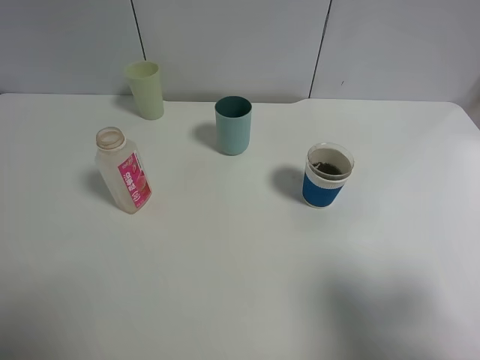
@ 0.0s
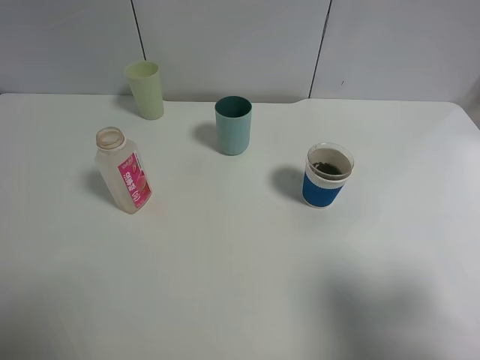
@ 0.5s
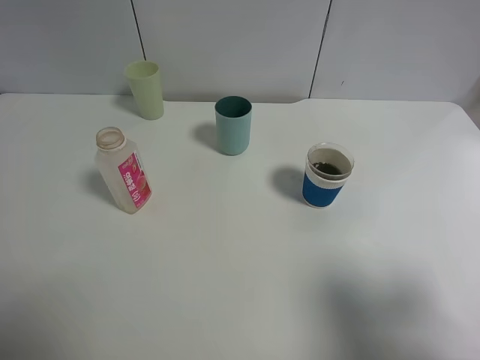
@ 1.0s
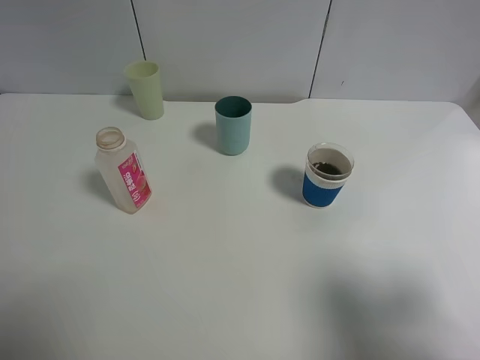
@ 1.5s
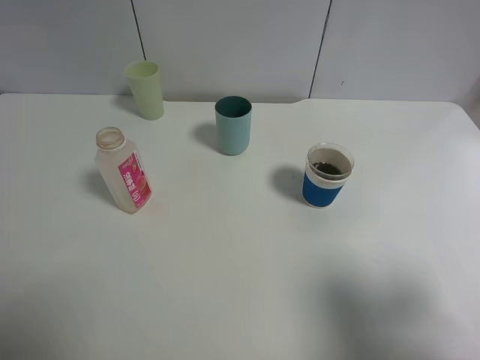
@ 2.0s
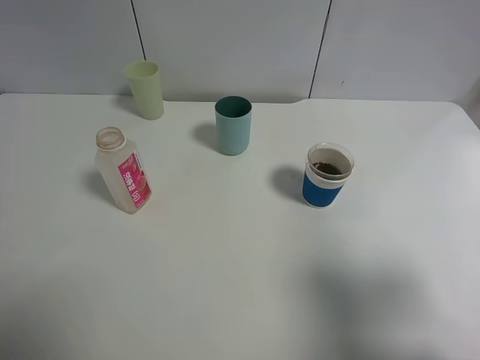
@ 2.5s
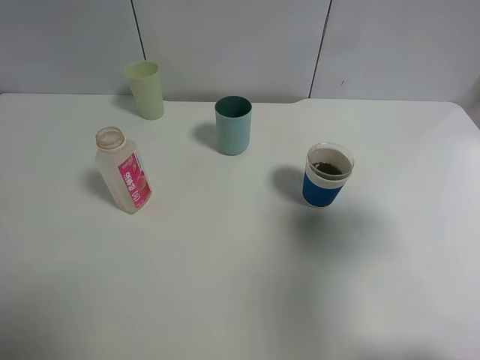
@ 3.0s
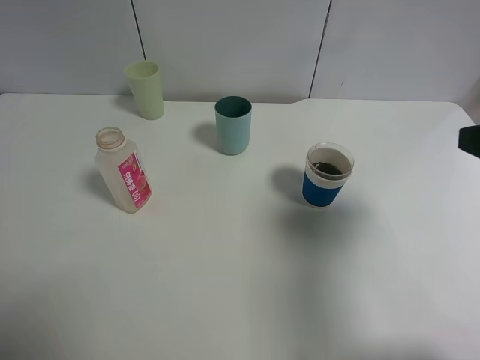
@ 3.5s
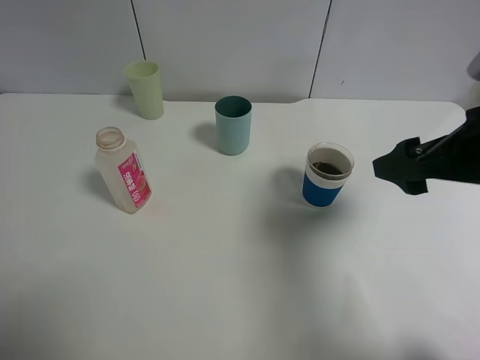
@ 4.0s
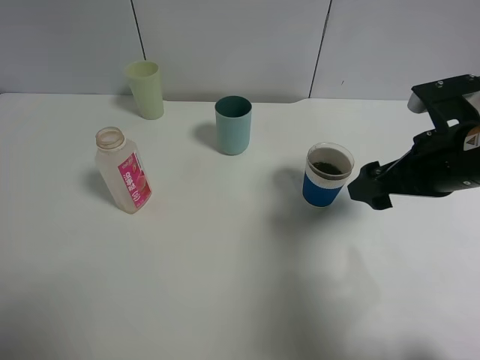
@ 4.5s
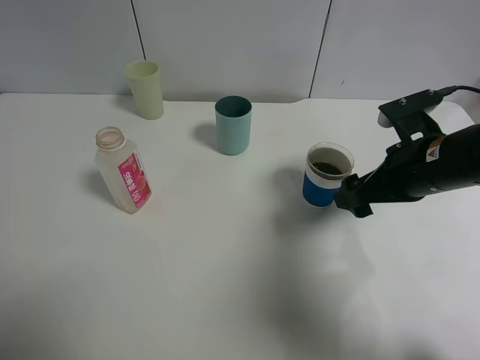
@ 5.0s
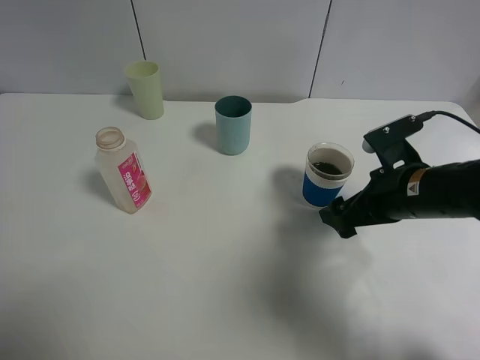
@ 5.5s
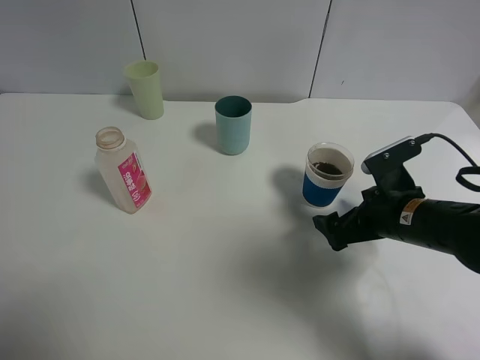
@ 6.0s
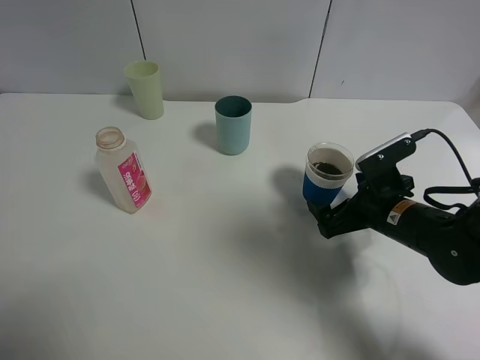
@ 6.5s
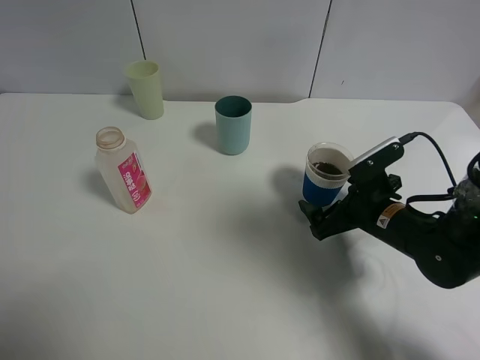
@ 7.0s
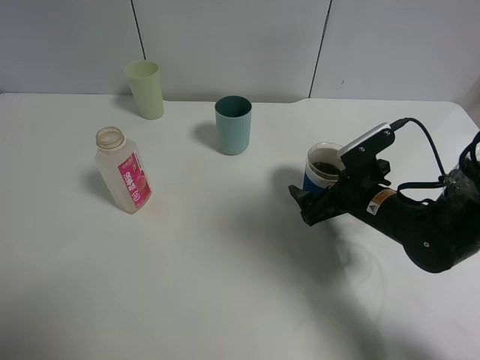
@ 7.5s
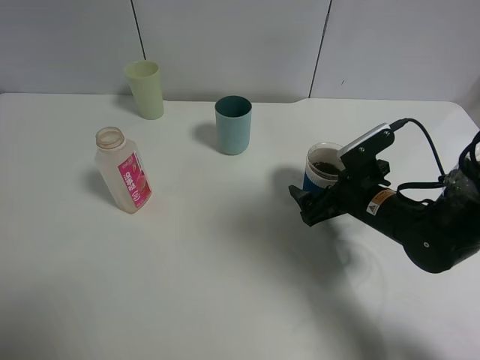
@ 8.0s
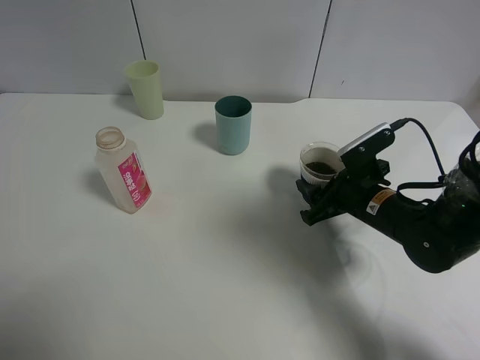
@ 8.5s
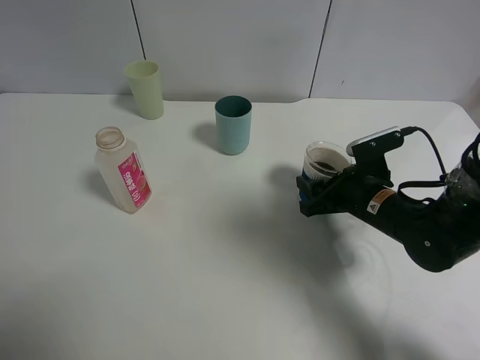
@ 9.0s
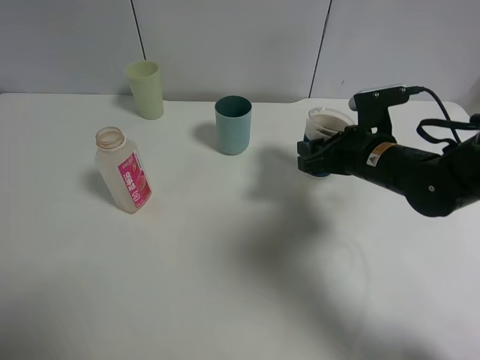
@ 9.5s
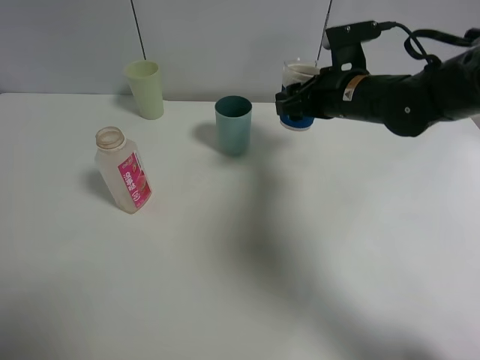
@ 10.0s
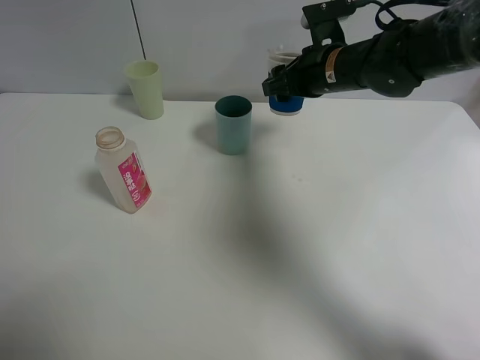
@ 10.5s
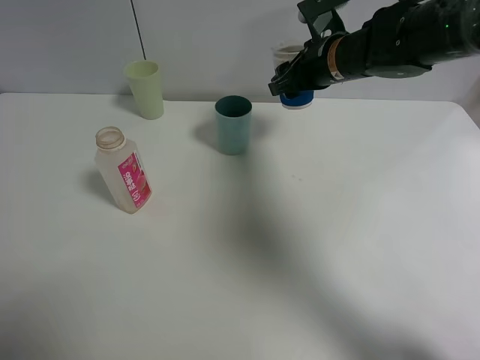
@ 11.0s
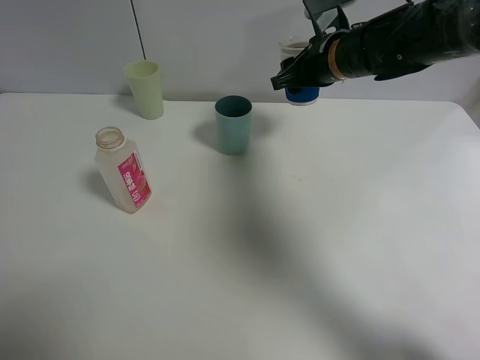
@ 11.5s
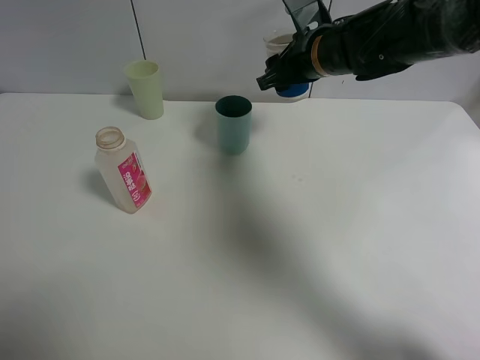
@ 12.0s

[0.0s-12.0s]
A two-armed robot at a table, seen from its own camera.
Task of the whole recording: use a clamp to hold the bottle of the drink, pour the beverage into a random cup, then clamp the cup containing the drink and pour the drink into another random cup.
Step, 0.0s to 9.0s: Pick up the paper cup with right gripper.
2.0s to 4.0s: The right gripper moves forward, about 20 cm.
4.0s to 6.0s: The right gripper shifts about 15 cm downward.
8.0s to 10.0s: The right gripper heads upward and forward, covering roughly 15 cm, and closes its fingers.
10.0s to 12.0s: The right gripper shifts by about 5 cm.

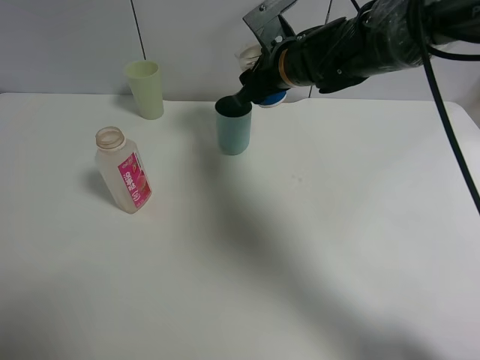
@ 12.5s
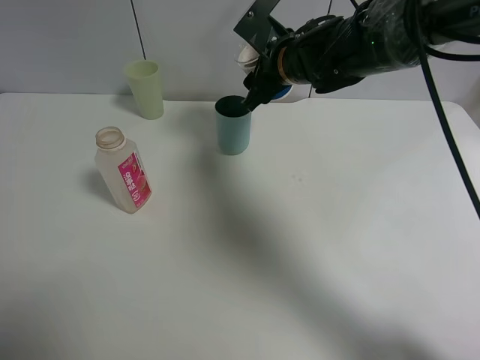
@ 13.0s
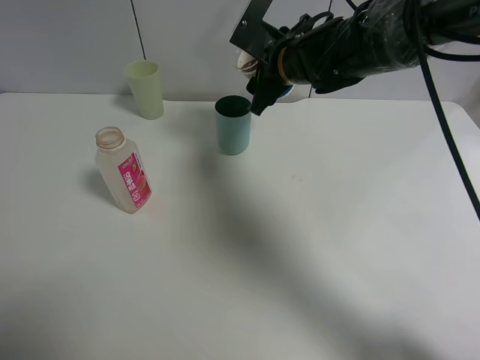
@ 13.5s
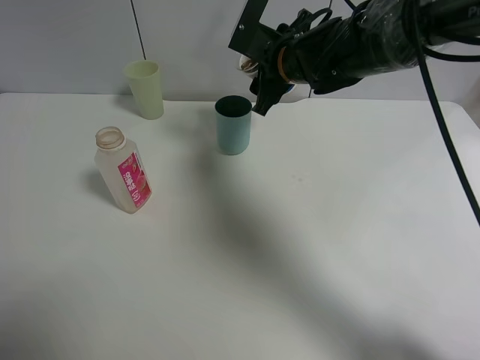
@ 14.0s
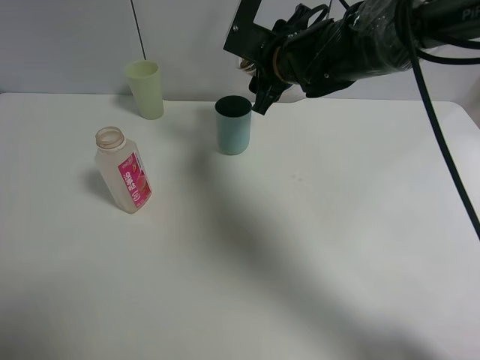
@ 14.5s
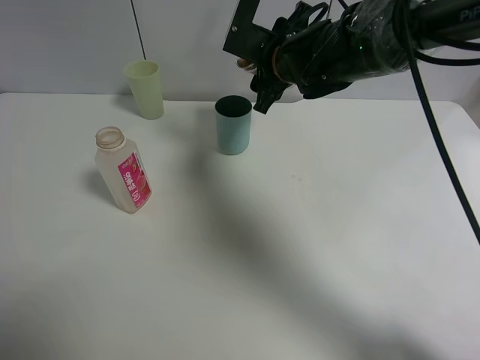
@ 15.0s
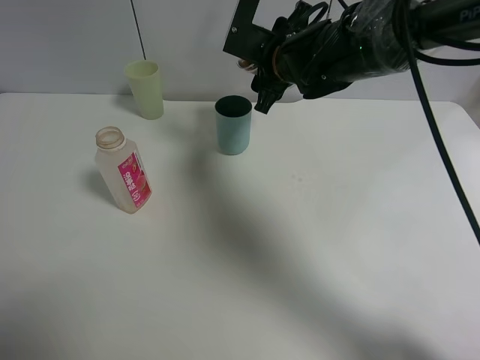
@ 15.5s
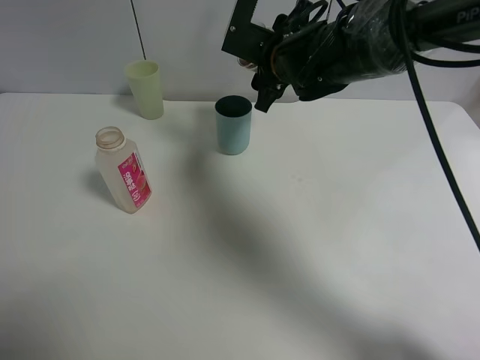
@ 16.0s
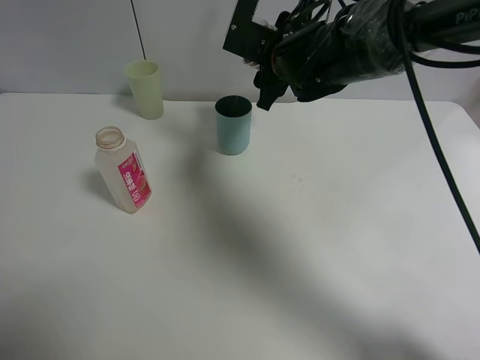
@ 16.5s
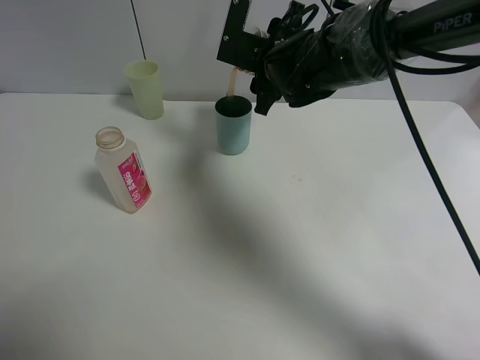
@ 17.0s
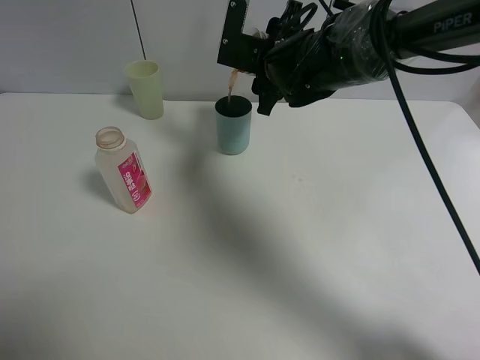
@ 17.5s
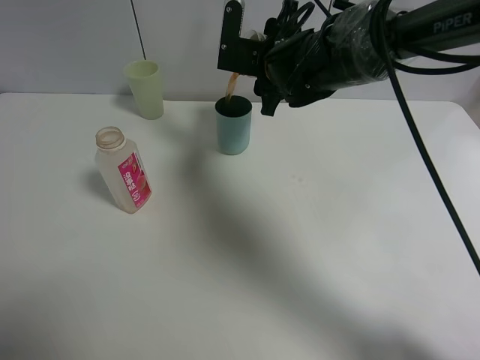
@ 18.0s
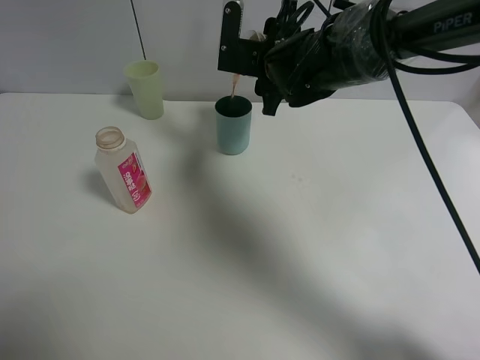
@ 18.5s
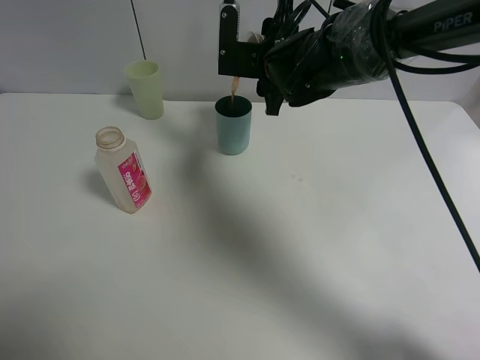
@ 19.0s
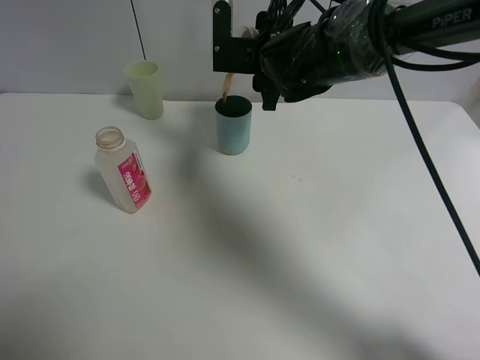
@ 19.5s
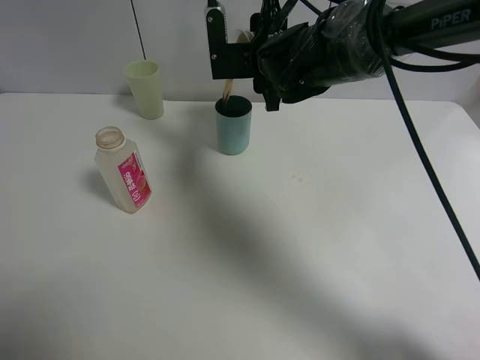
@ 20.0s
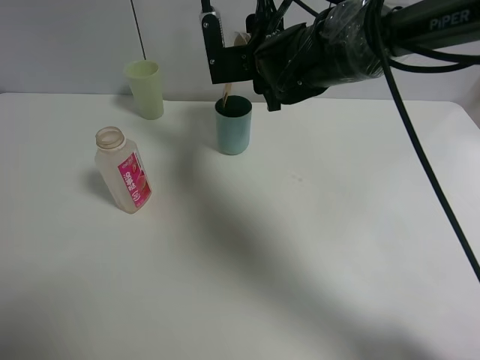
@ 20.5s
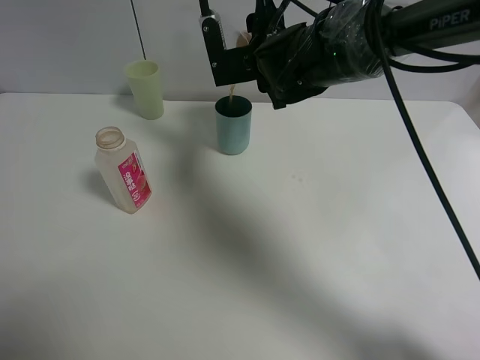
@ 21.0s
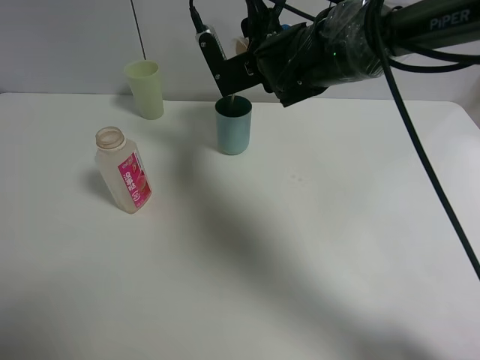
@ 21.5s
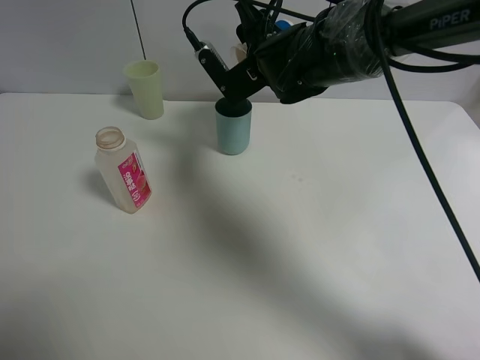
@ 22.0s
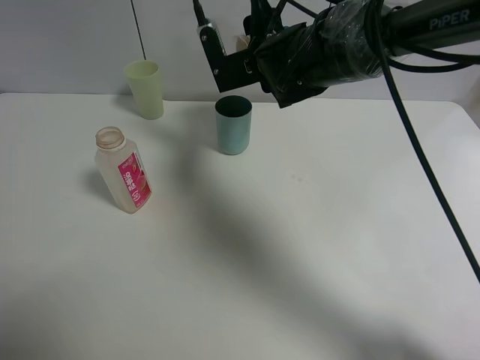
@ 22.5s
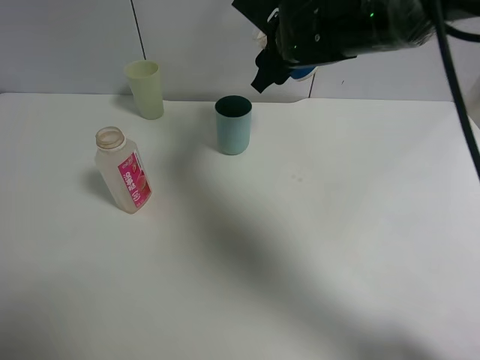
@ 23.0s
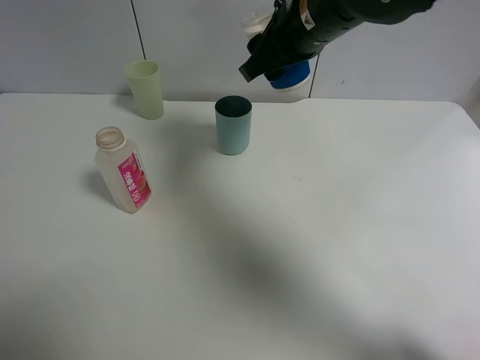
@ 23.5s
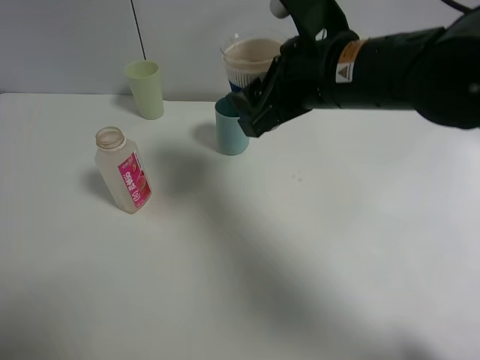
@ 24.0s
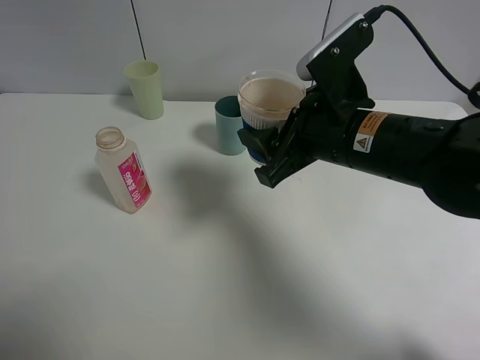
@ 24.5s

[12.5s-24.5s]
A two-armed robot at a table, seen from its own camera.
Task of the whole recording: use a clamp to hold the bottle of the drink, pour the beverage into a random cup, then clamp the cup containing the drink and pour the drink into another random cup.
Step, 12.5s to 23.0s: Pour the drink into the blue plastic cup with right gripper.
14.5s to 18.5s: The grippers move only a little.
18.5s to 20.5s: The grippers make only small movements.
22.5s to 24.5s: The right gripper heads backward and to the right, covering roughly 20 cm.

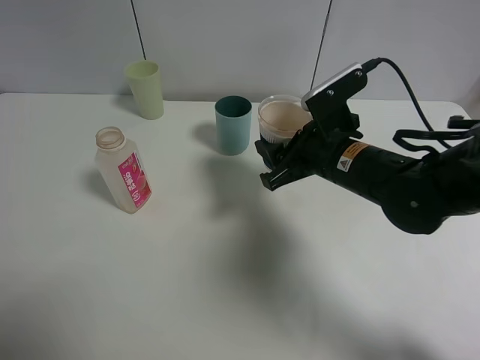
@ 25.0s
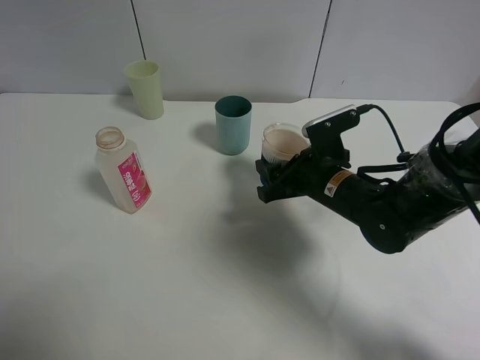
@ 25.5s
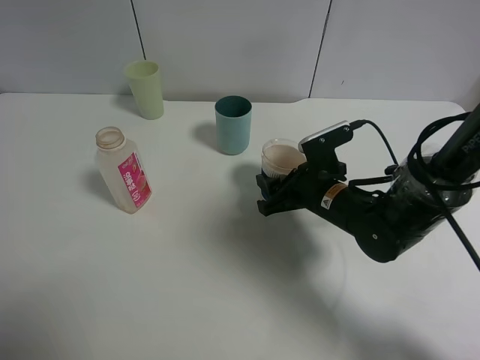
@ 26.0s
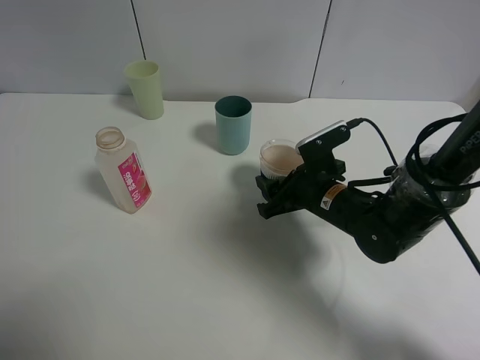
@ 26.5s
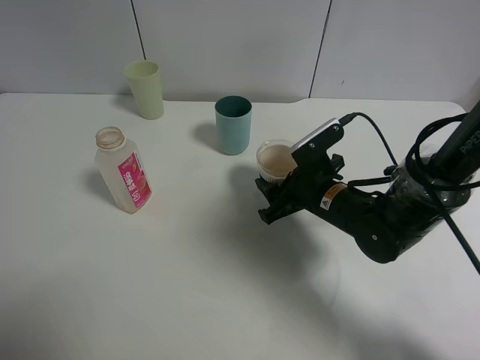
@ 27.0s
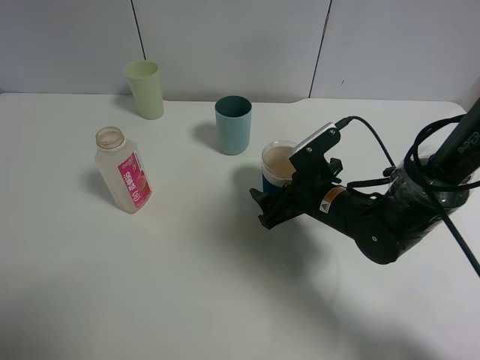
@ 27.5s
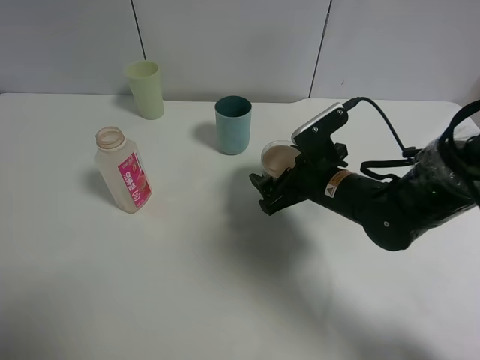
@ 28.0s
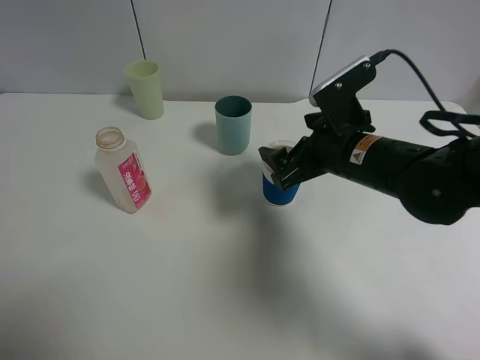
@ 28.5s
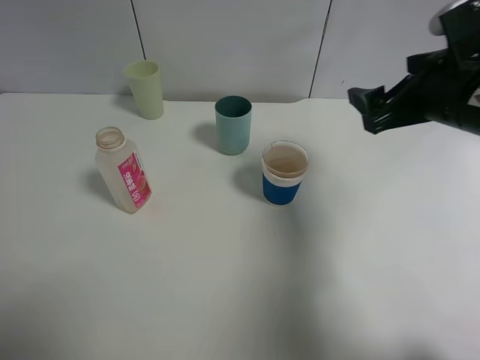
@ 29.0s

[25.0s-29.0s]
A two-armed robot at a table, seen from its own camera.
Task of the whole recording: use a clamp to hold the bottle of the drink, pour the beverage into a random cup, then clamp the cup containing the drink and pour the drink into another random cup.
Step, 25.0s to 28.0s: Place the paper cup on the table with right gripper.
25.0s to 27.0s: The right gripper moves downward, roughly 10 cm.
27.0s to 29.0s: The right gripper heads upward and to the right, covering some 20 cm, and opens up.
